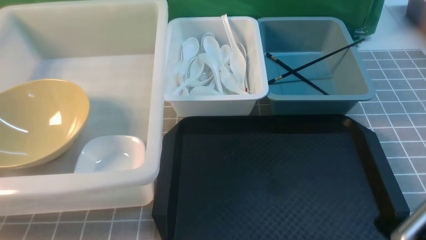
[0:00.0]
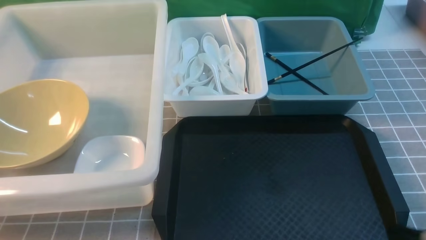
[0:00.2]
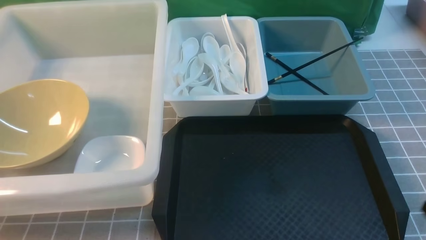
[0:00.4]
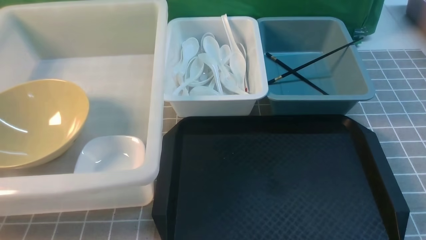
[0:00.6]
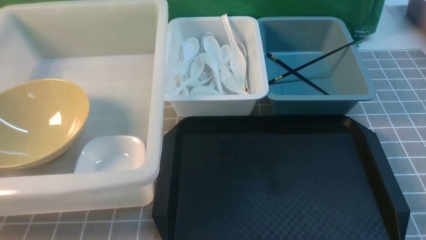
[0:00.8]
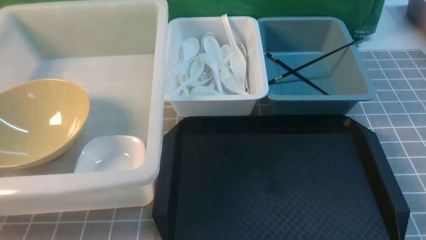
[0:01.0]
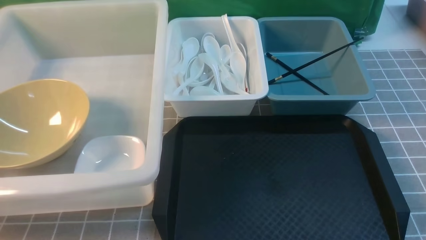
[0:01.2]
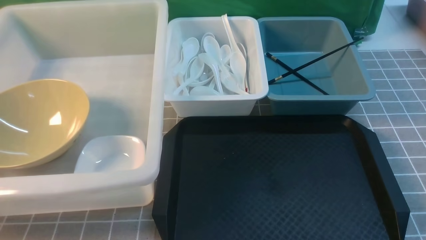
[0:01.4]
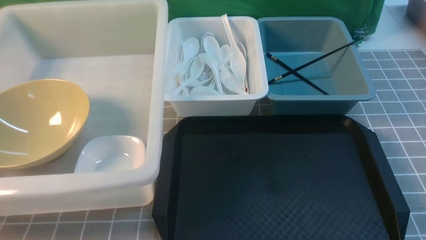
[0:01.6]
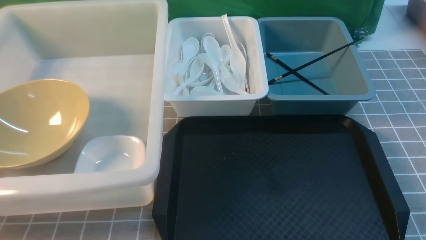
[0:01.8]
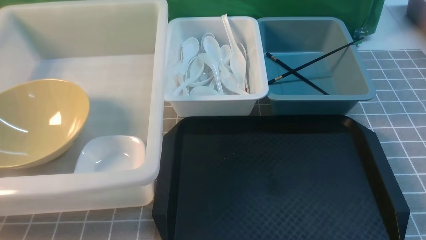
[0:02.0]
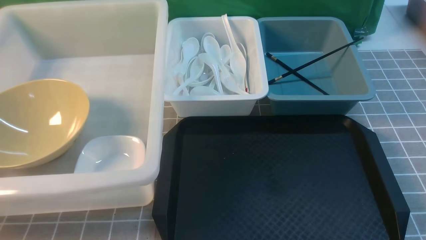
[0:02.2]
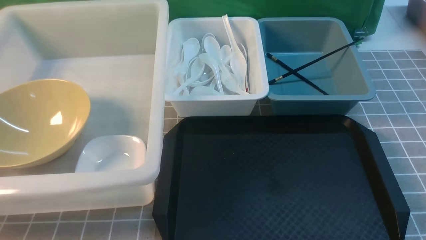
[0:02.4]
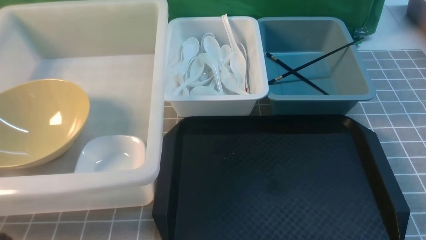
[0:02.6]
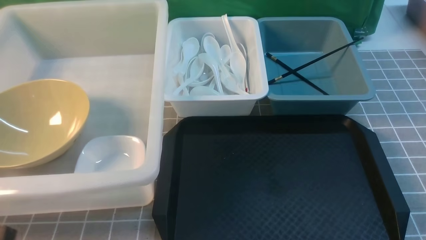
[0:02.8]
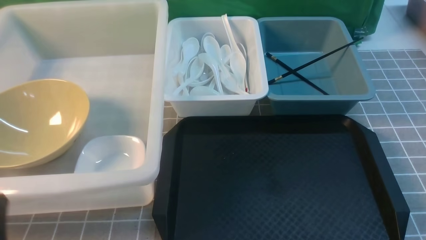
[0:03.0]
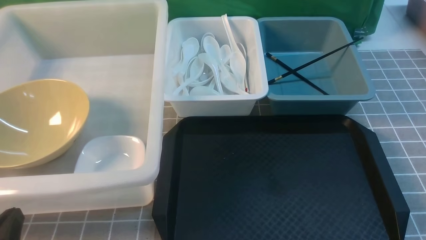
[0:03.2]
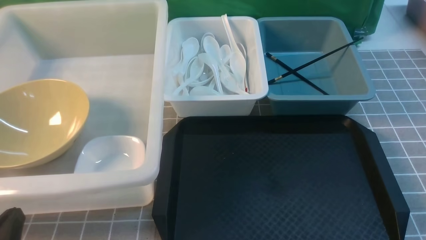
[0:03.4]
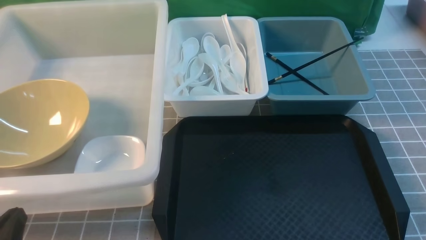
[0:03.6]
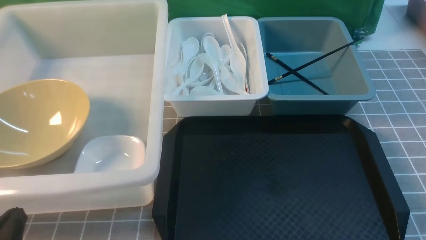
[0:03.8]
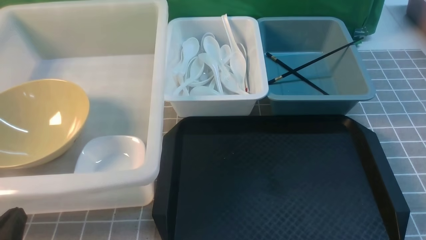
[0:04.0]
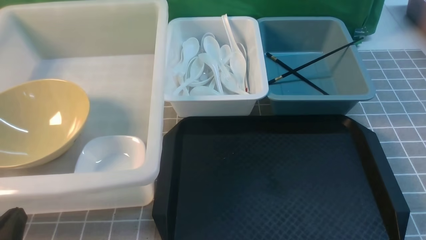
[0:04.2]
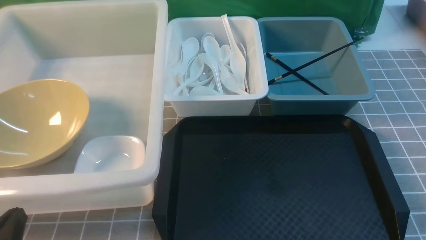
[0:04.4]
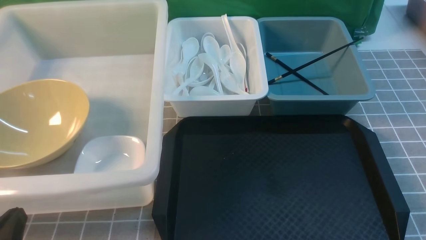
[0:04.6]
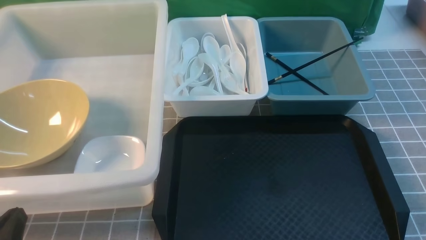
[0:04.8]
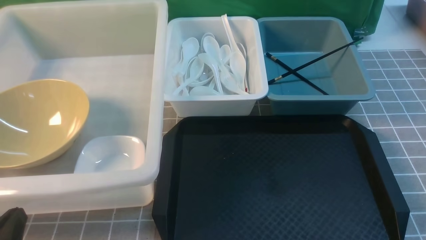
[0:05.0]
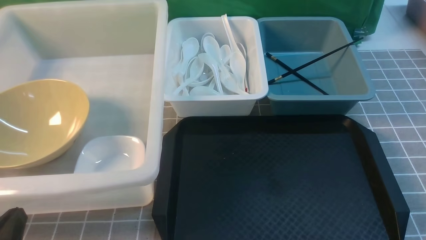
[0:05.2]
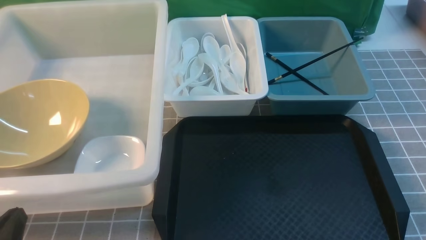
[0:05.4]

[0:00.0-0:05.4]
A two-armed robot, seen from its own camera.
Task of the whole recording: on grey table put chopsticks spoon bowls plates into blue grey white boxes.
0:00.0 to 0:01.4: The right gripper travels backward by about 5 cm.
0:04.0 to 0:05.4: Both grippers stay put.
